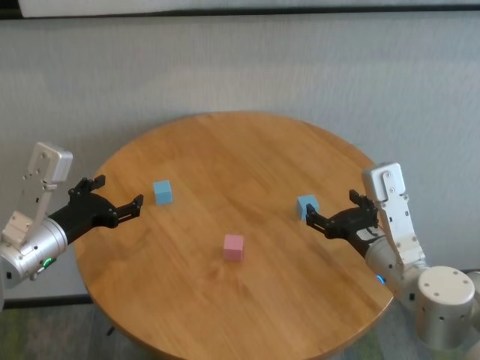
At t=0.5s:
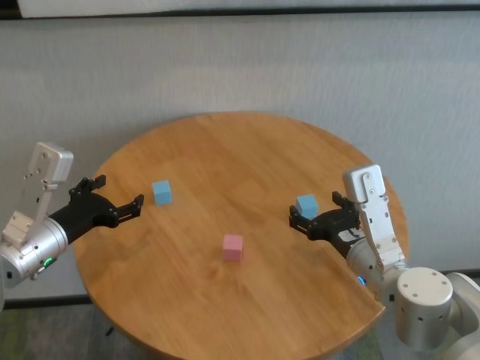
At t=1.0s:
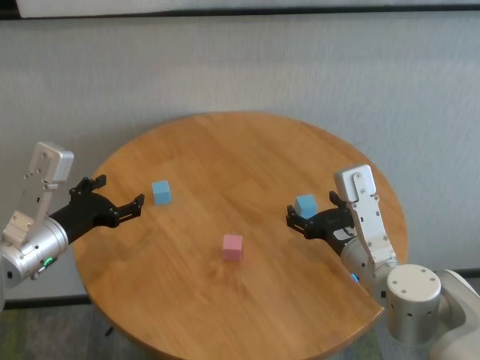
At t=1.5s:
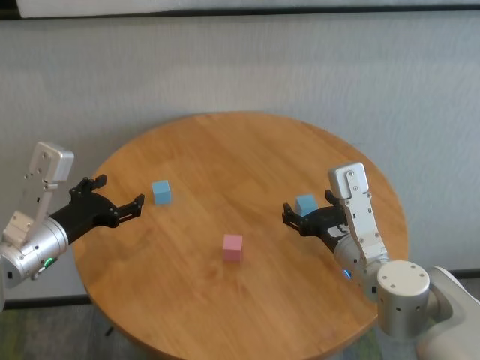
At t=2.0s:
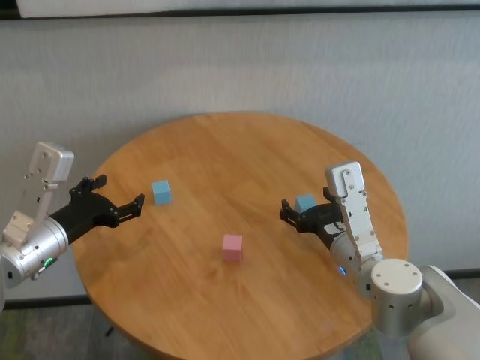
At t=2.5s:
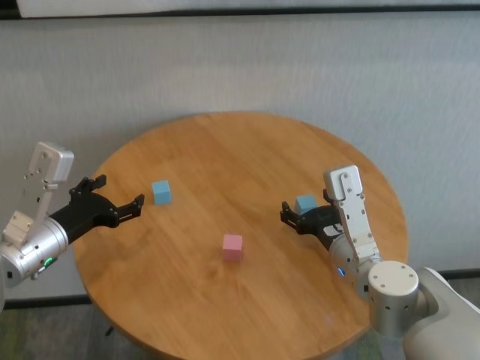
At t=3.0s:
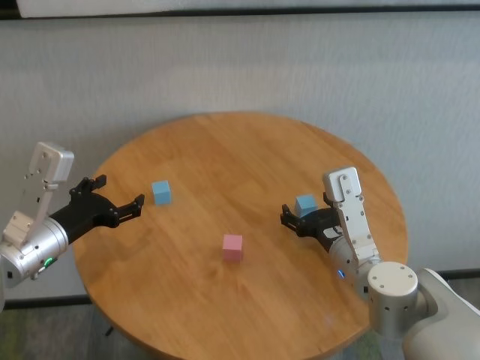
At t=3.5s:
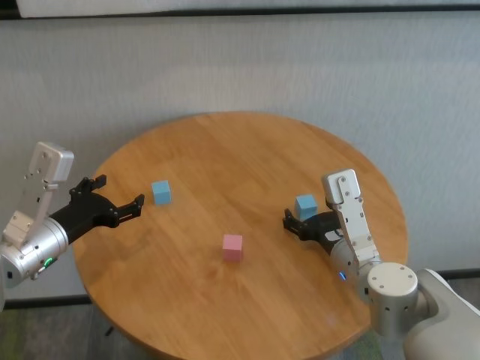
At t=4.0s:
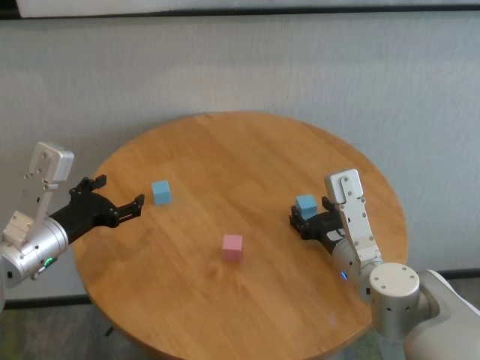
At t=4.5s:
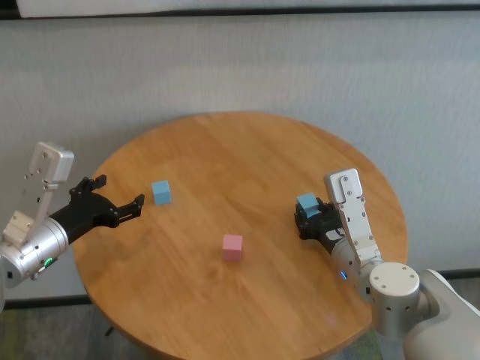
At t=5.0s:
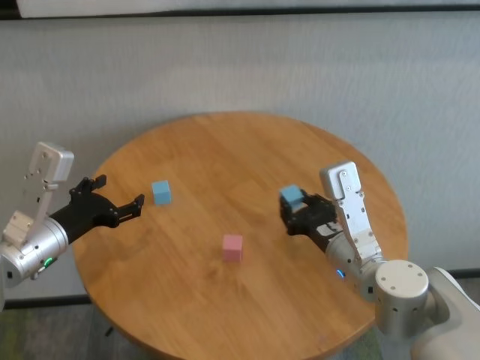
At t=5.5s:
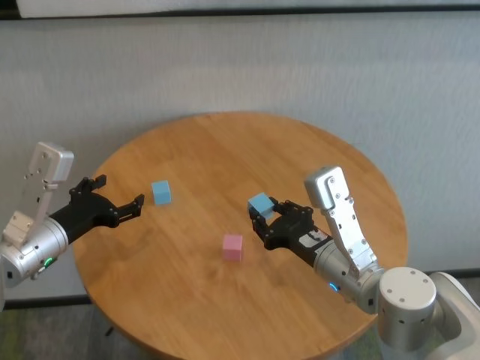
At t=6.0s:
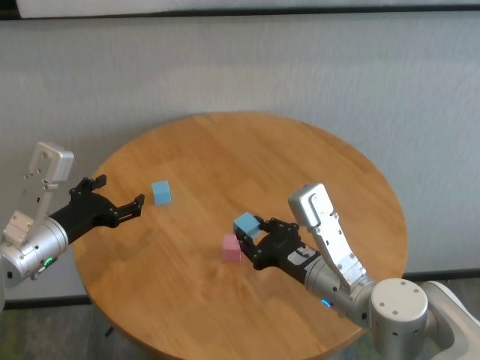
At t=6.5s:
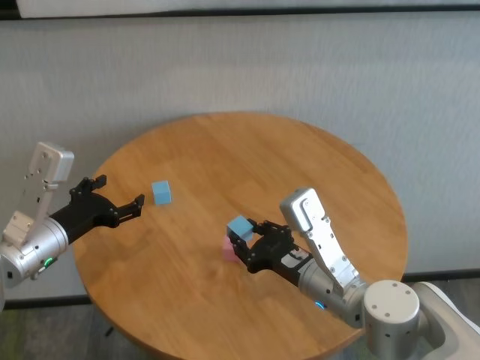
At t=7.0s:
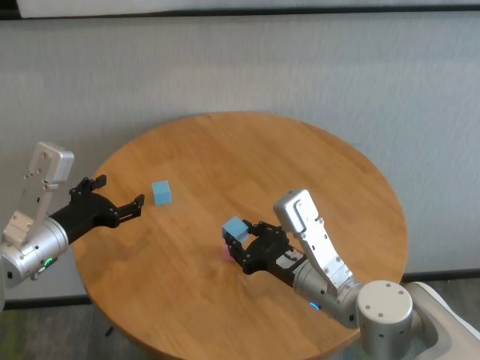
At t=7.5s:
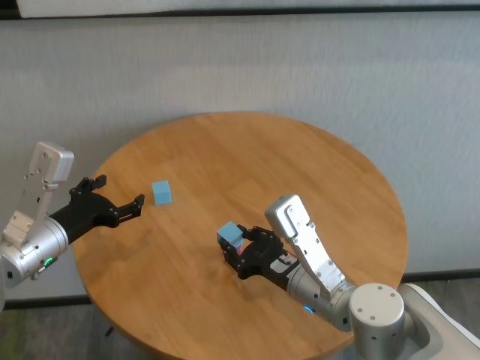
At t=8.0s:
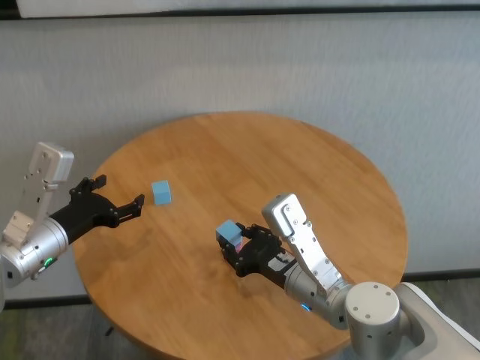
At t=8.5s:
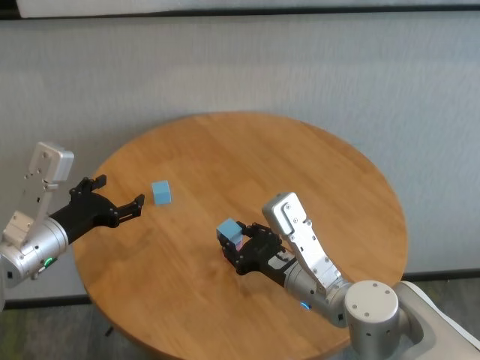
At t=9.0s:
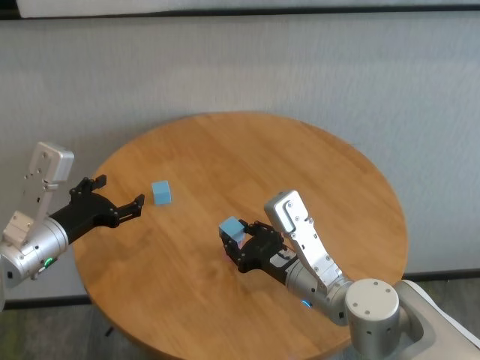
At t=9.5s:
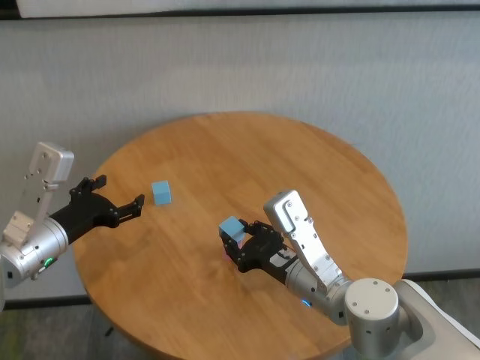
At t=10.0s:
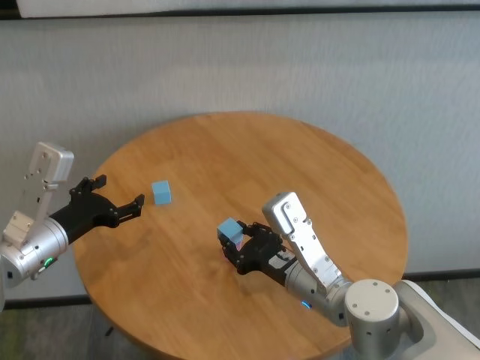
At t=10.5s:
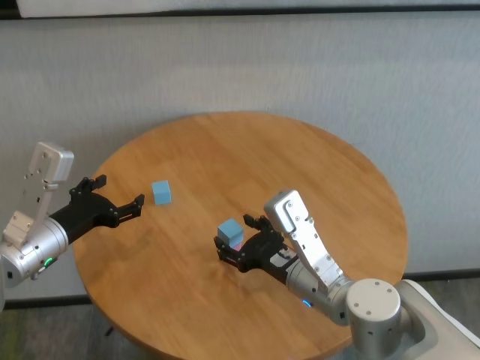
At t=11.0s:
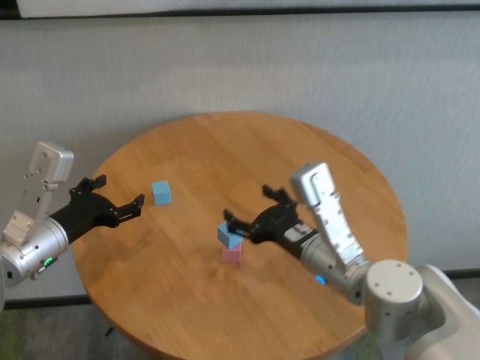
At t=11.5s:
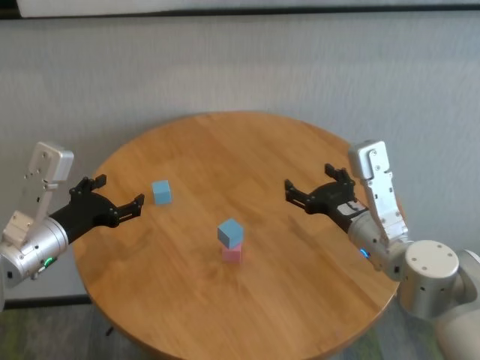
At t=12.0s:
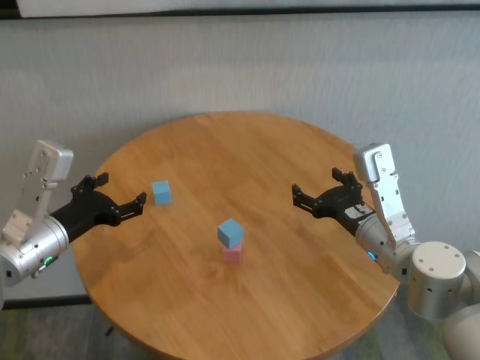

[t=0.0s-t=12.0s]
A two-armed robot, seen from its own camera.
Task of the whole recording: stack building blocks on the table.
Step, t=0.0s to t=4.0s: Grasp the blue building block with right gripper.
Step, t=4.5s to t=10.0s: Place the blue building block on the pink building blocks with right gripper.

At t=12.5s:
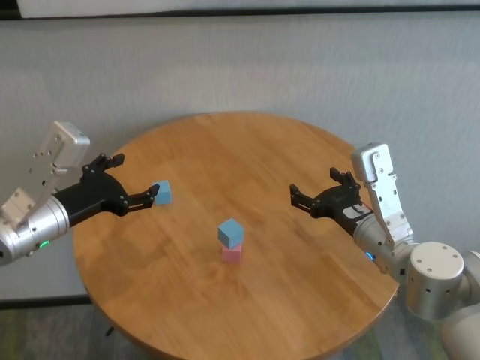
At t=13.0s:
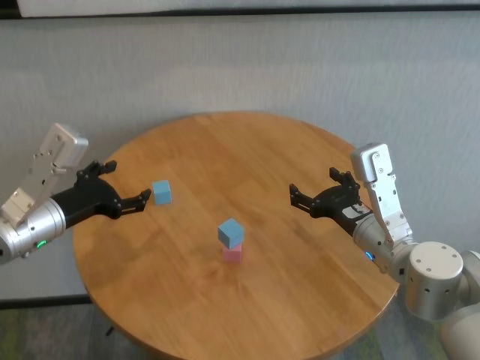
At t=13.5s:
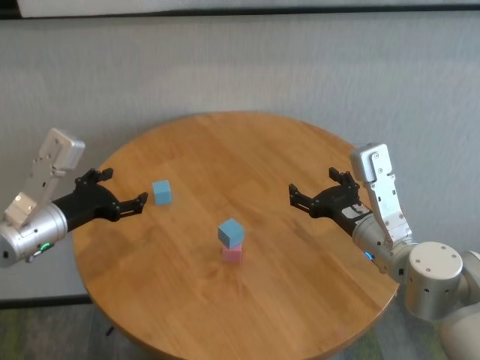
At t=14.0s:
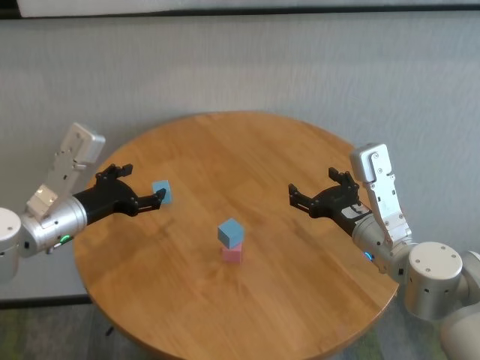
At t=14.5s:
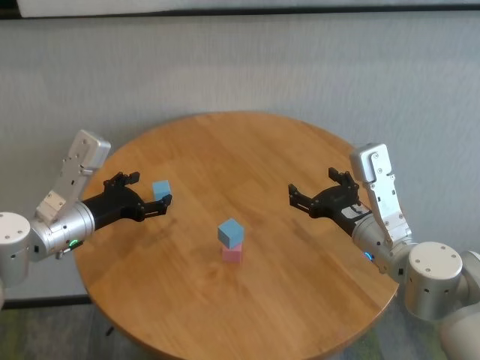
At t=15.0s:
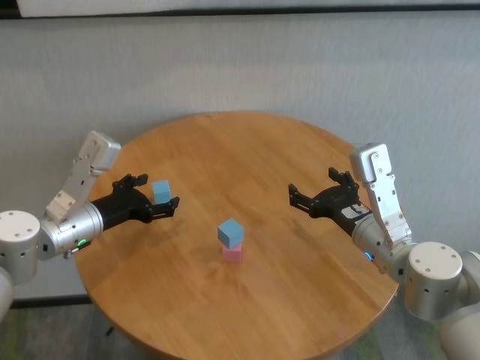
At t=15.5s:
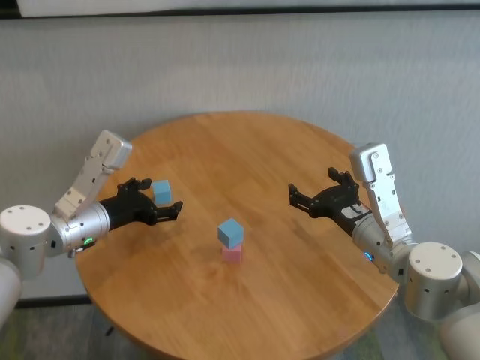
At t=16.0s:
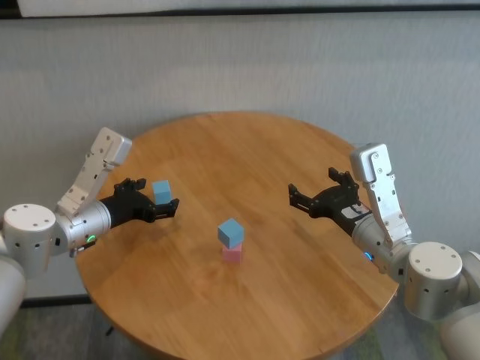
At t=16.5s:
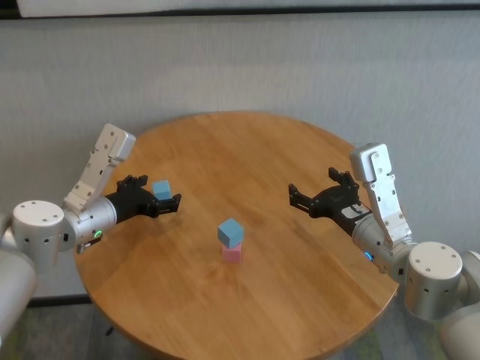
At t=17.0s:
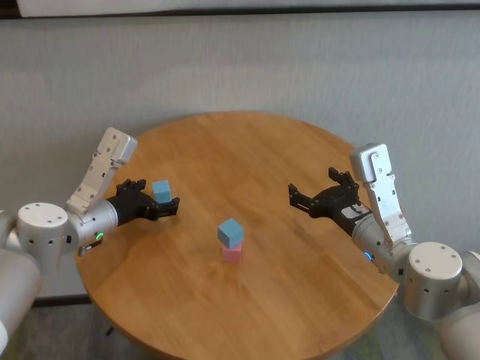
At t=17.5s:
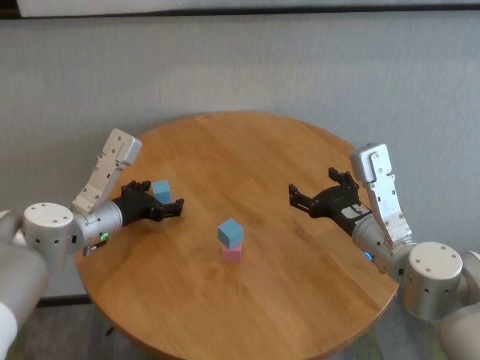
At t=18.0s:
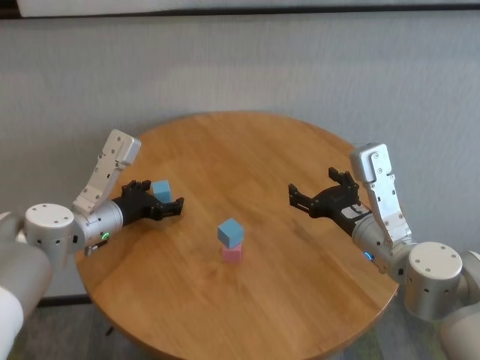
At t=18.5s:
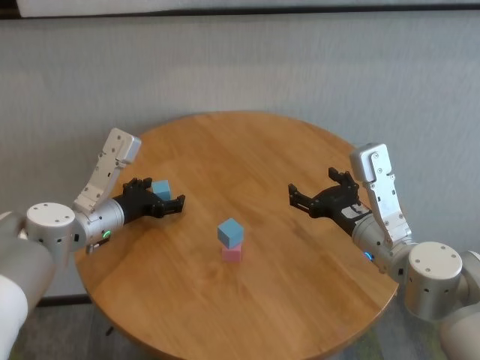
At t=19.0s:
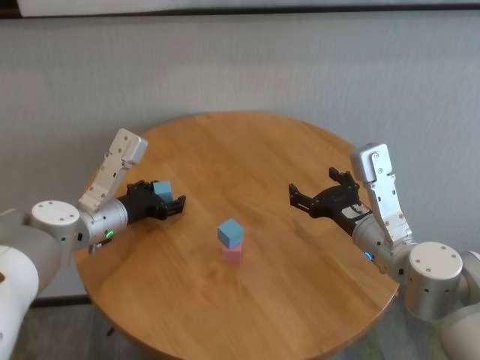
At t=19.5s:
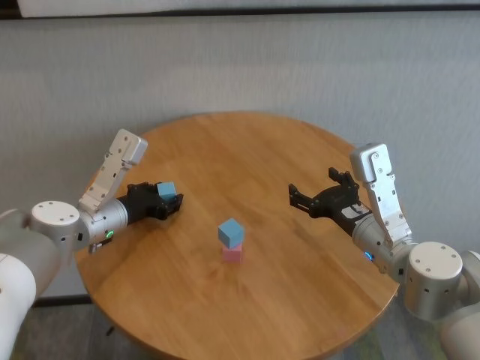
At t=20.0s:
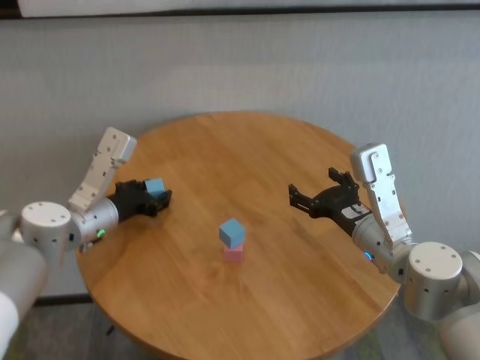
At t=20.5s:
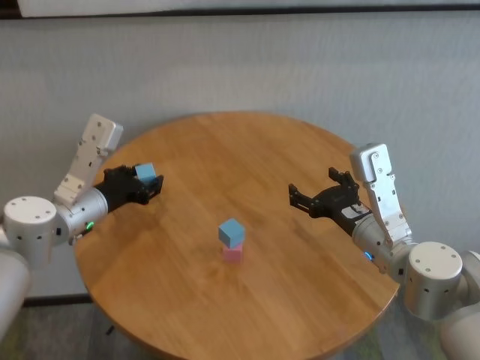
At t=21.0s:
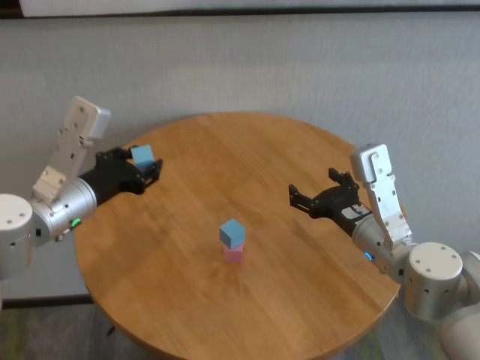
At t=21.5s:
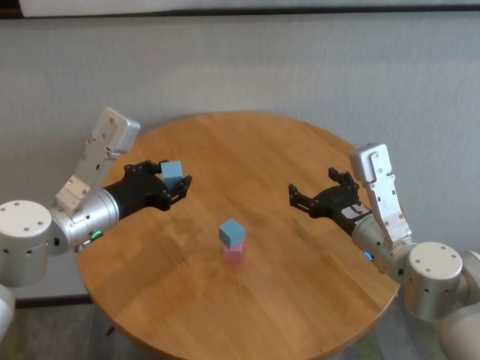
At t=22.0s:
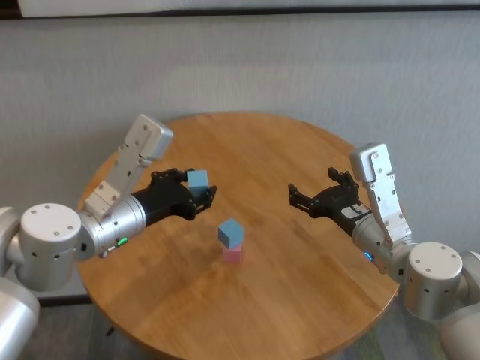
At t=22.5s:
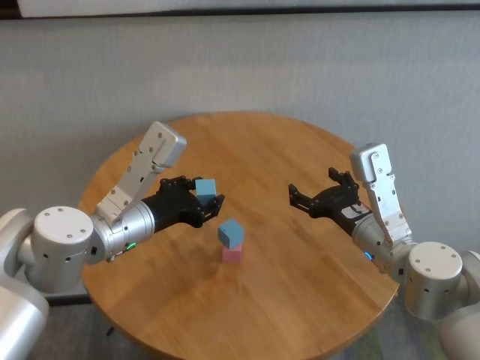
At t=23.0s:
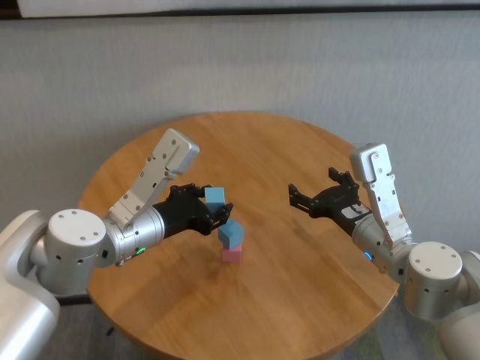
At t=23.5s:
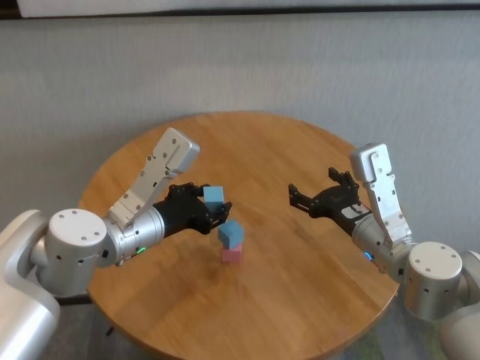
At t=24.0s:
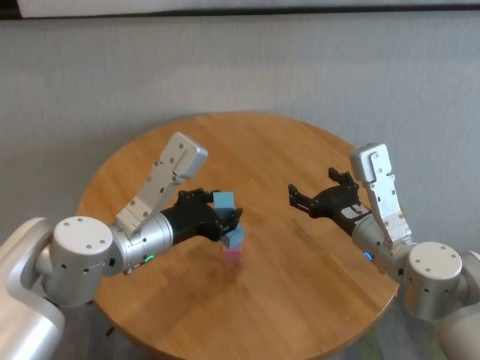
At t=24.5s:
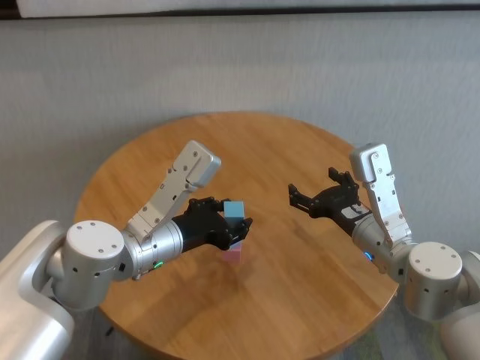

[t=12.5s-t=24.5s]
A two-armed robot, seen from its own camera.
Task of the whole recording: stack building blocks on the table.
Step, t=12.5s to t=19.0s: Grasp the blue building block with left gripper.

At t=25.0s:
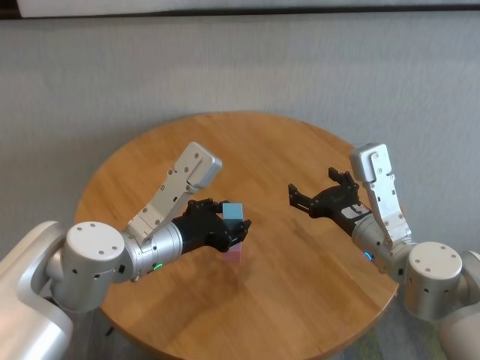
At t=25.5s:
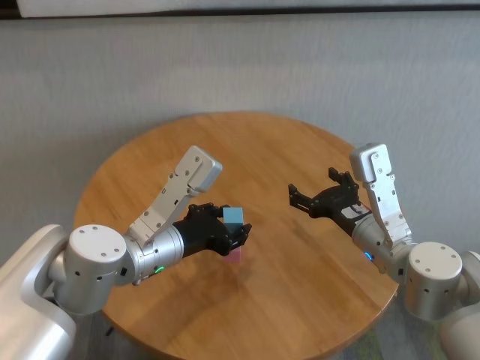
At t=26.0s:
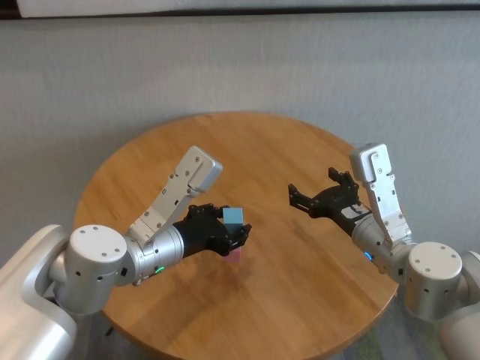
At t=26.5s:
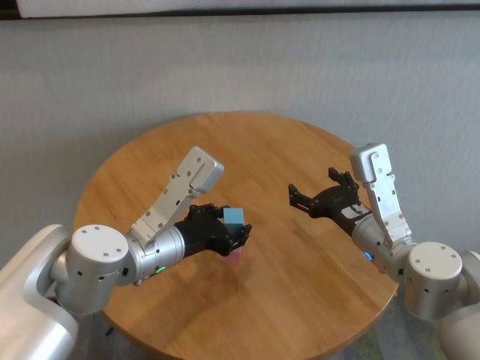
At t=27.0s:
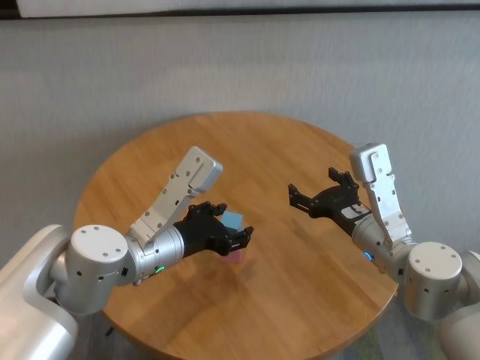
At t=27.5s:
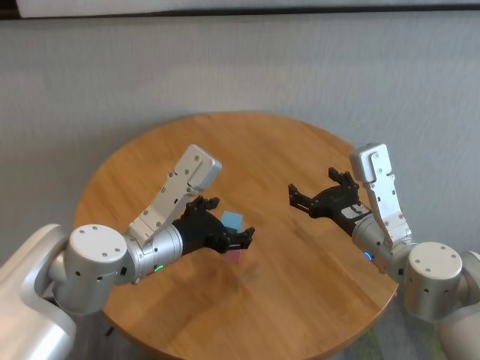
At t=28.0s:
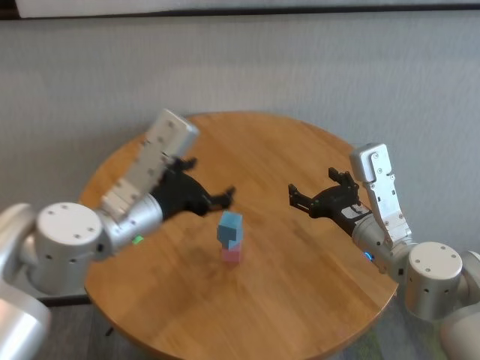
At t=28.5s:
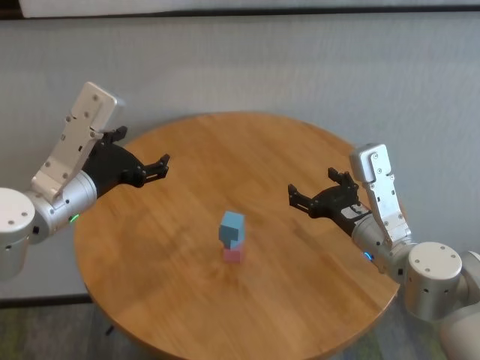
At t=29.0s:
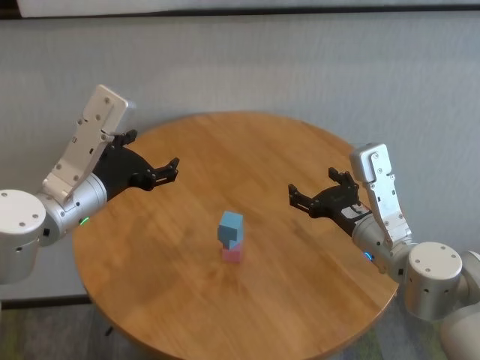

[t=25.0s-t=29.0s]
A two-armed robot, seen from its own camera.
Task of the whole recording: stack building blocks on the table.
Step, t=25.0s to t=27.0s: Place the blue building block on the blue building blocks with left gripper.
